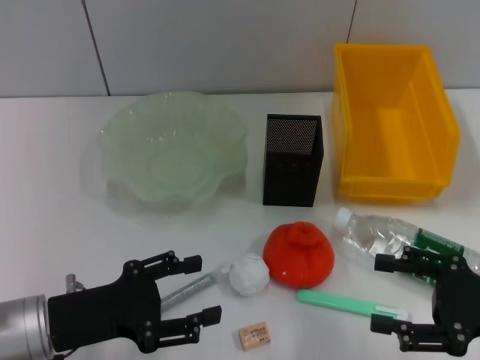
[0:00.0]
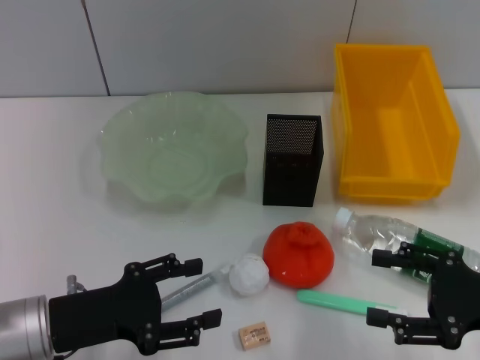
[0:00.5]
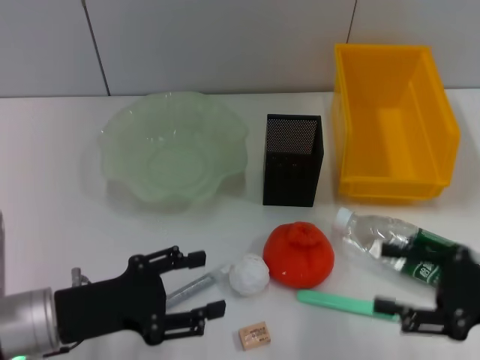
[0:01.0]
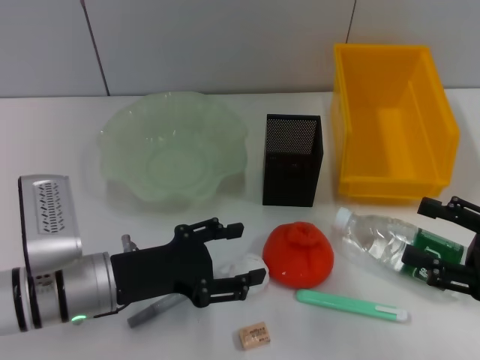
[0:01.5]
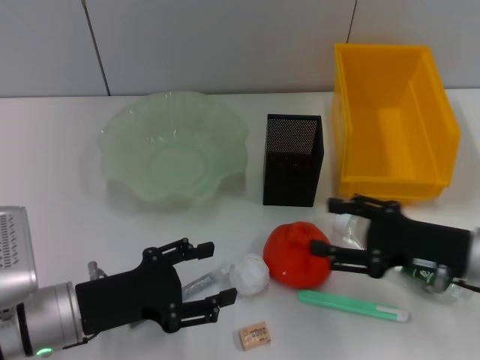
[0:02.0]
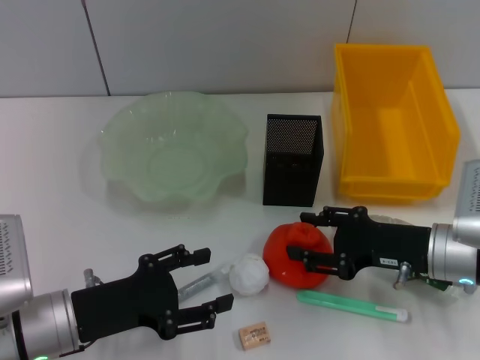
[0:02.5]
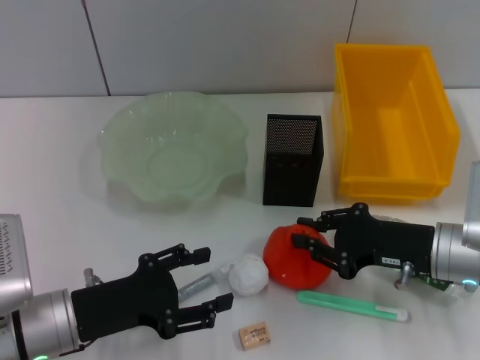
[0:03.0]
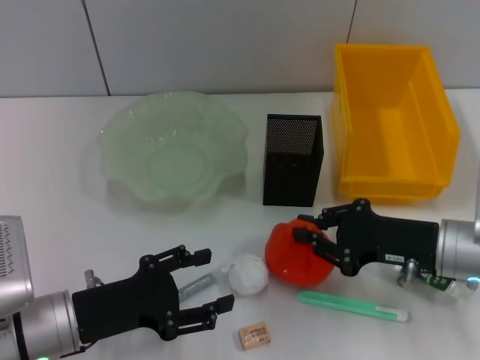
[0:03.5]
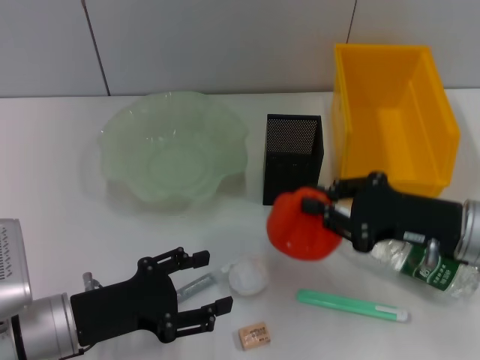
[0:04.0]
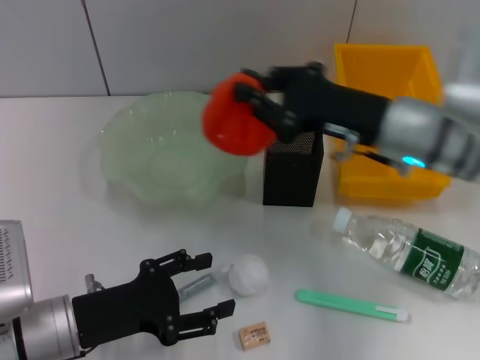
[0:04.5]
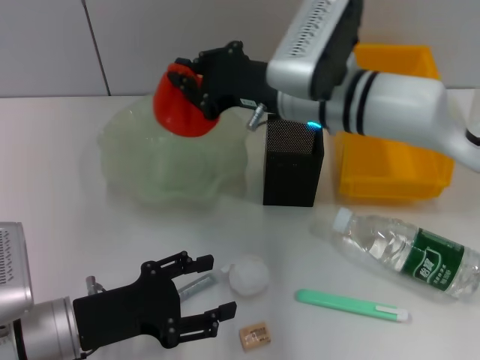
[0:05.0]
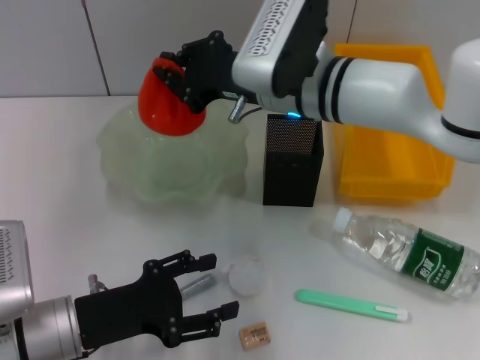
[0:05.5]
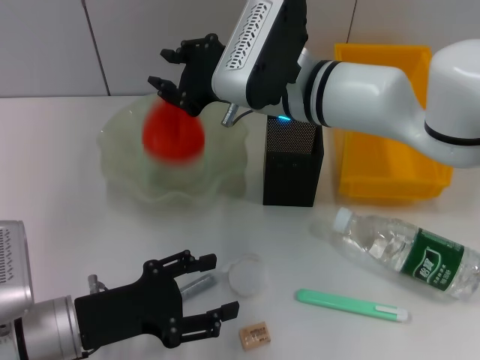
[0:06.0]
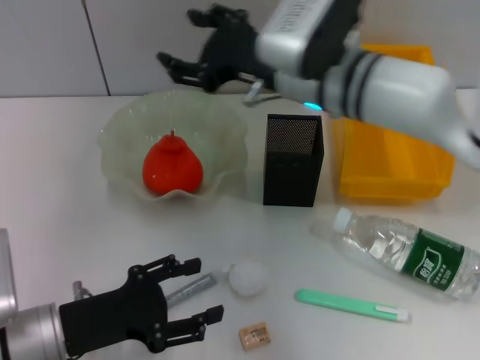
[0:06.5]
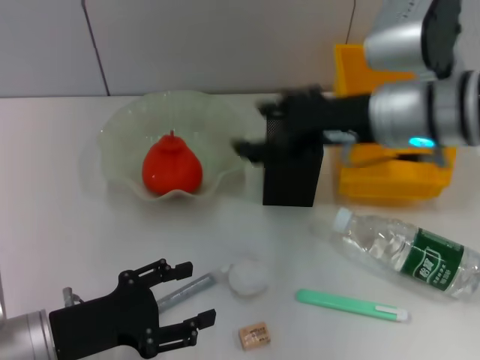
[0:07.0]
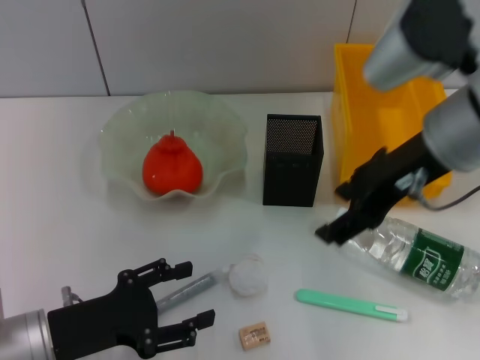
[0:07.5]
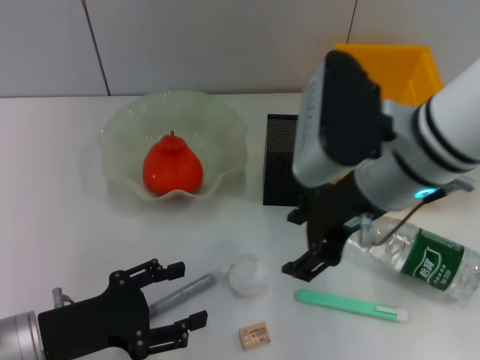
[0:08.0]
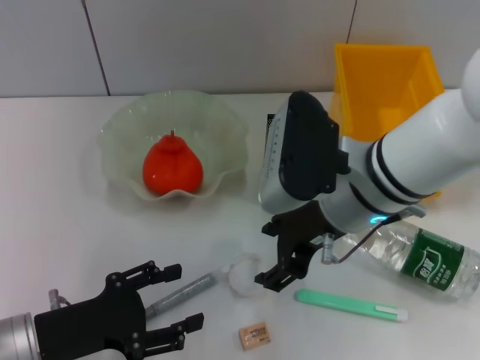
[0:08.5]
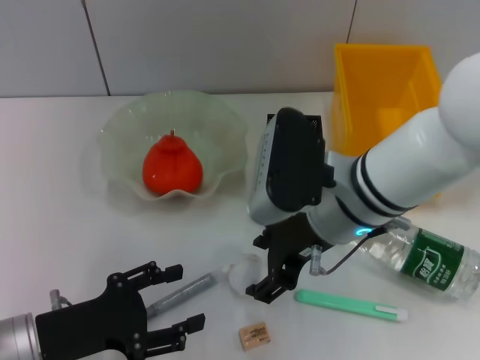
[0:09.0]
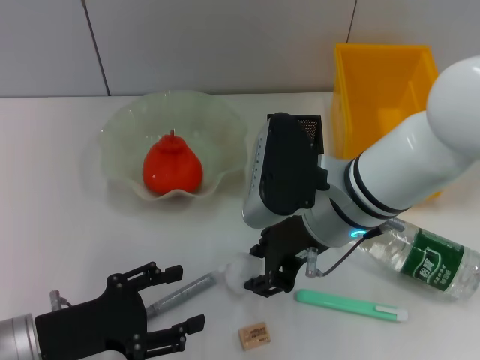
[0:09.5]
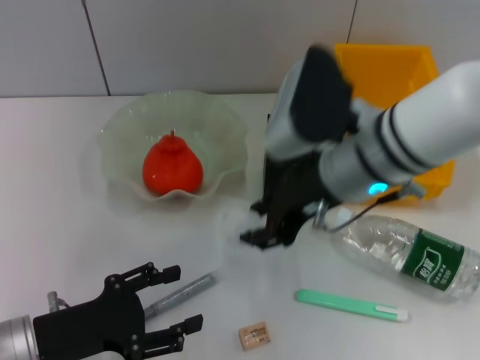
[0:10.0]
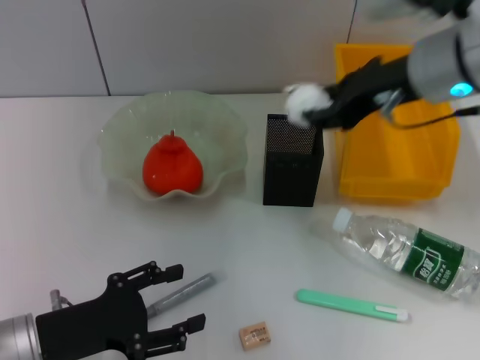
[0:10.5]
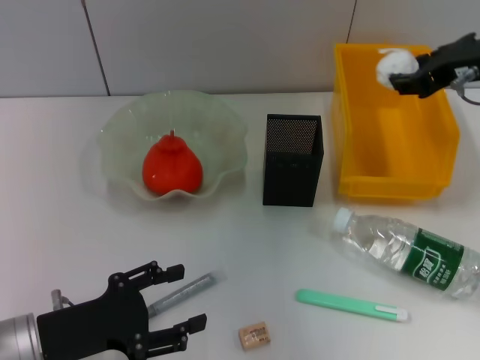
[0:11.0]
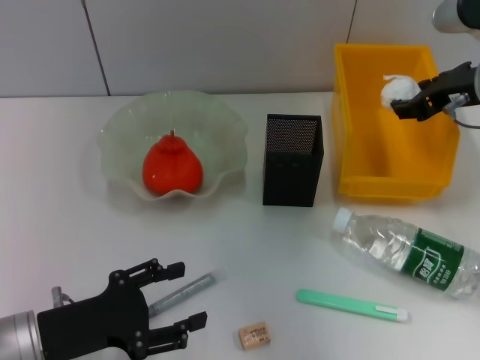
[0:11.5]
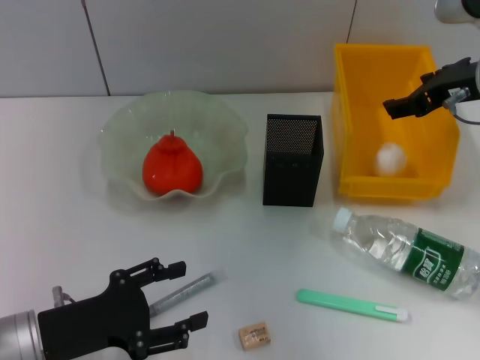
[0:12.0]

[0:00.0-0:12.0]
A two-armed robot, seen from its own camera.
Step, 0:00.0 to 0:03.0: Grab the orange with the right hand.
Step, 0:03.5 to 0:06.0: Place the orange into the fruit bowl with the right hand.
Step, 0:06.5 to 0:09.0: Grab the paper ball with the right hand.
Step, 0:09.5 to 0:12.0: Place the paper ball into the trash can with the right hand.
0:00.0 to 0:02.0: The right gripper goes some 5 cm forward.
0:02.0 to 0:04.0: The right gripper closes.
0:04.0 to 0:06.0: The right gripper shifts some 25 cm to the left, forward and upward.
0:06.0 to 0:08.0: The right gripper goes about 10 cm backward and to the right, and opens.
0:08.0 to 0:10.0: The right gripper closes.
0:10.0 to 0:12.0: The right gripper heads to the right and forward, covering roughly 15 cm, and opens up.

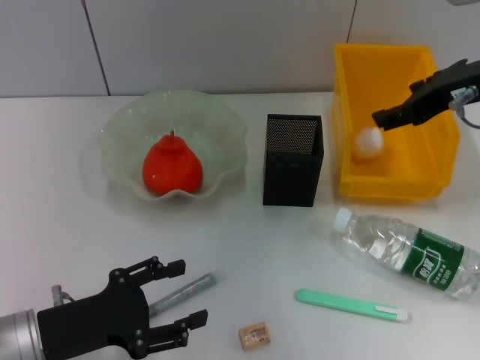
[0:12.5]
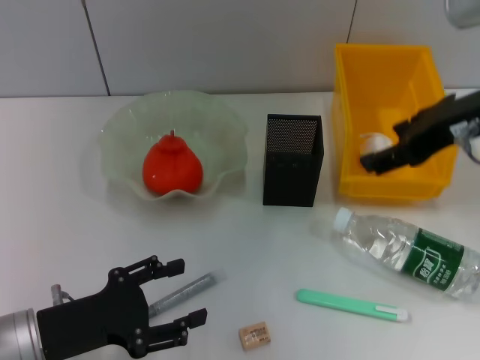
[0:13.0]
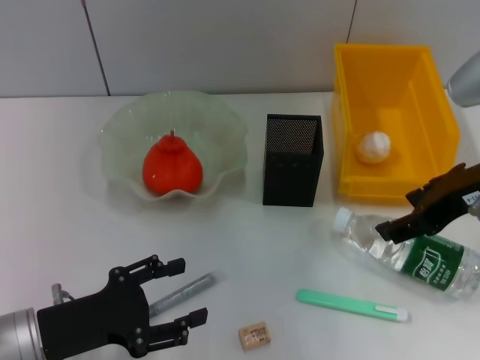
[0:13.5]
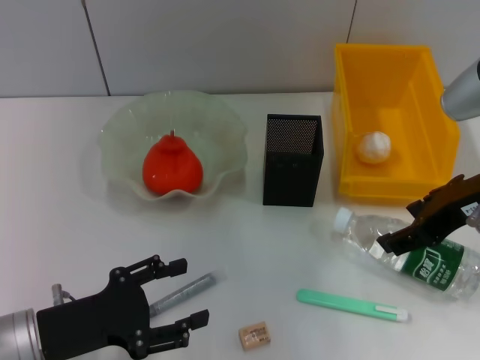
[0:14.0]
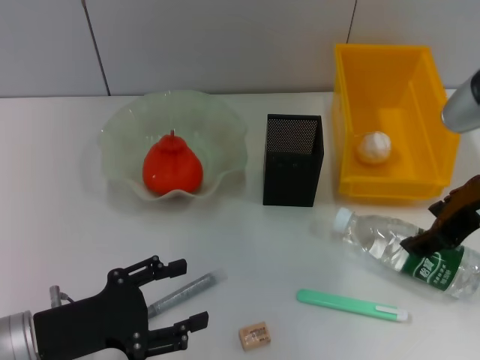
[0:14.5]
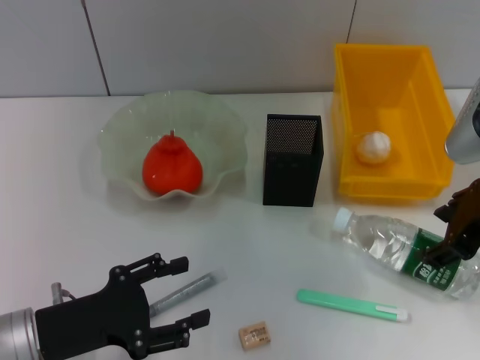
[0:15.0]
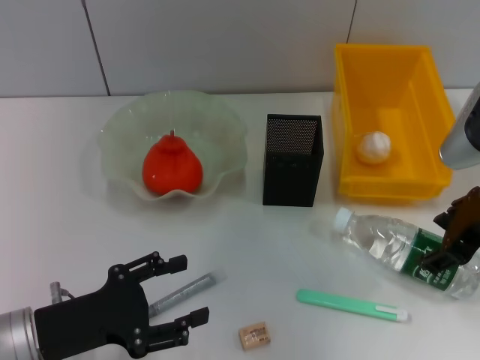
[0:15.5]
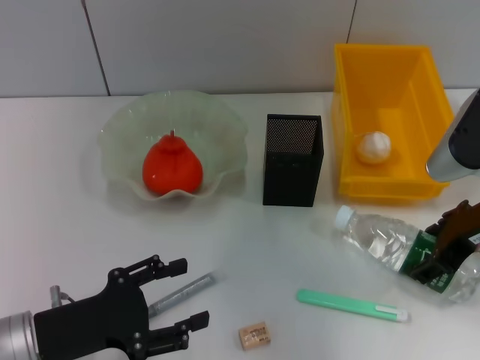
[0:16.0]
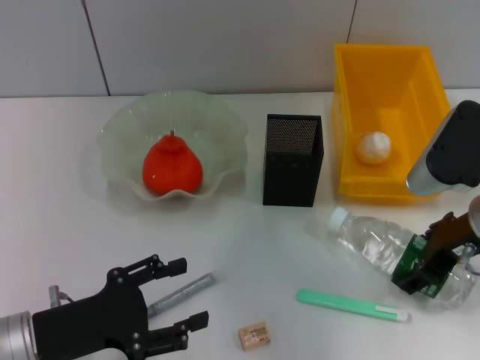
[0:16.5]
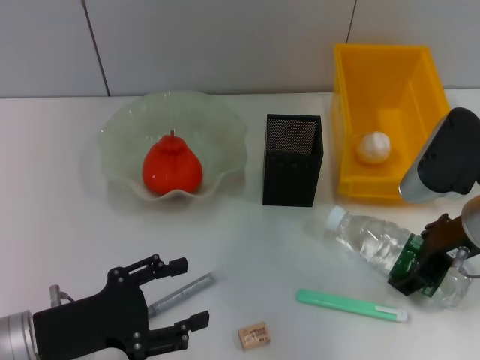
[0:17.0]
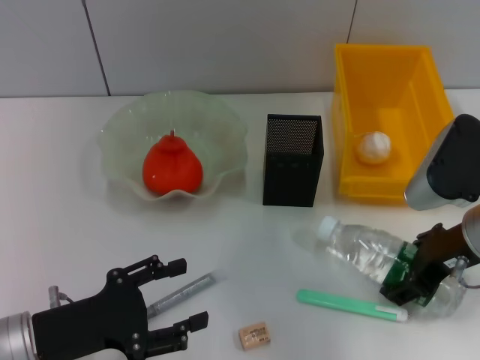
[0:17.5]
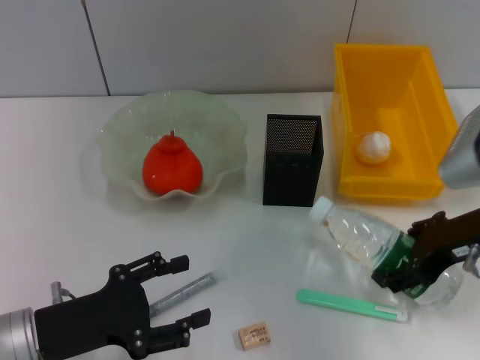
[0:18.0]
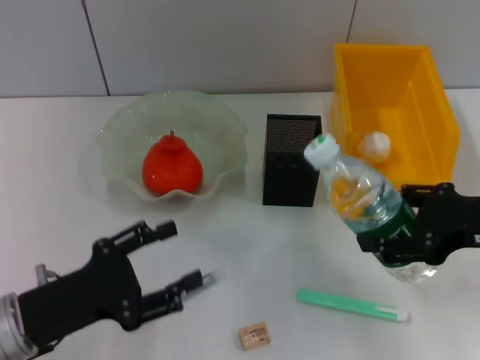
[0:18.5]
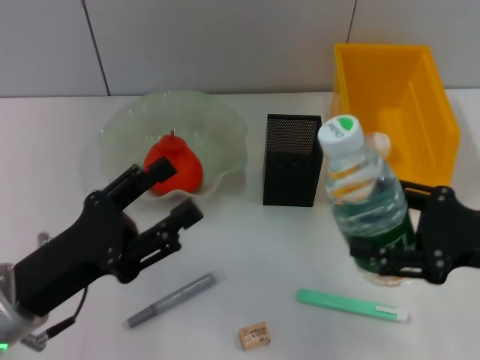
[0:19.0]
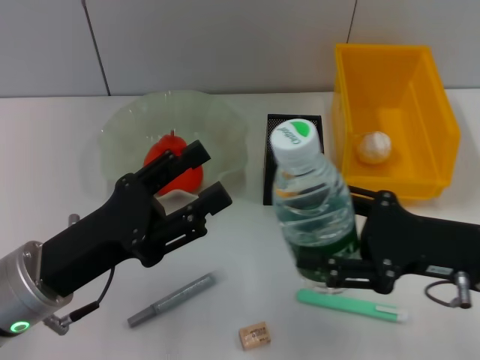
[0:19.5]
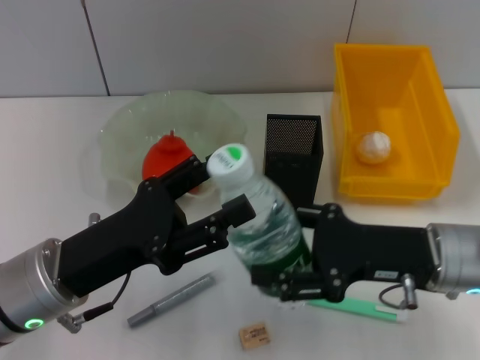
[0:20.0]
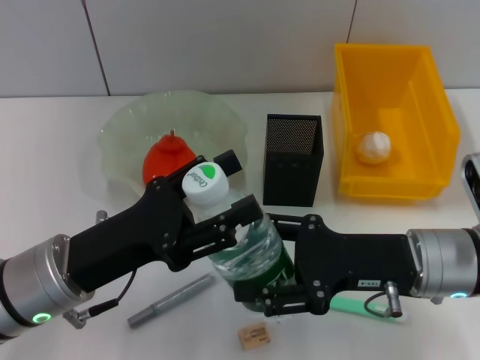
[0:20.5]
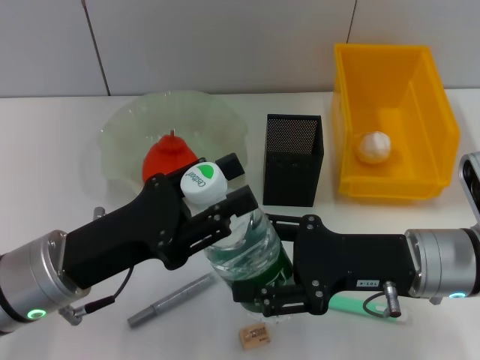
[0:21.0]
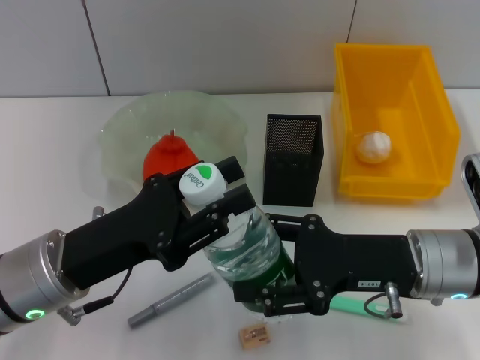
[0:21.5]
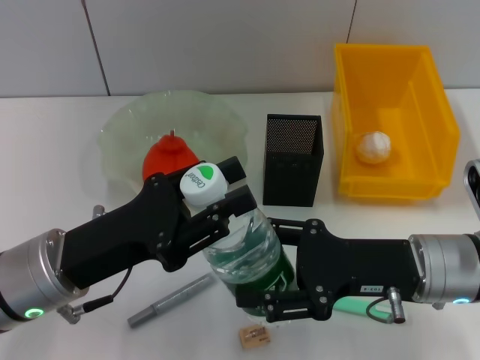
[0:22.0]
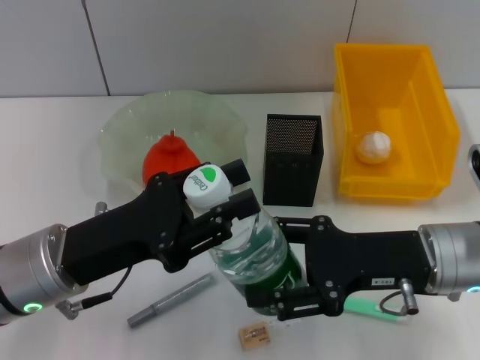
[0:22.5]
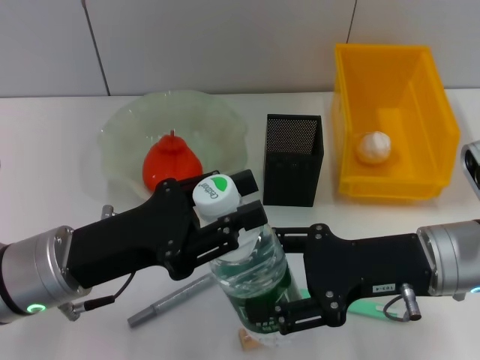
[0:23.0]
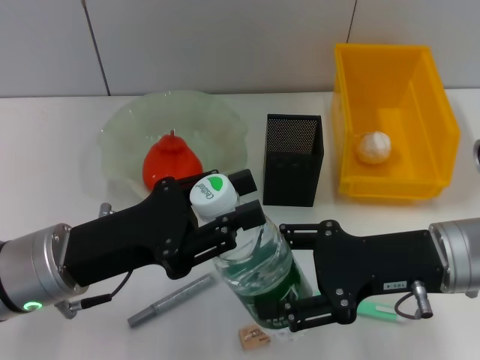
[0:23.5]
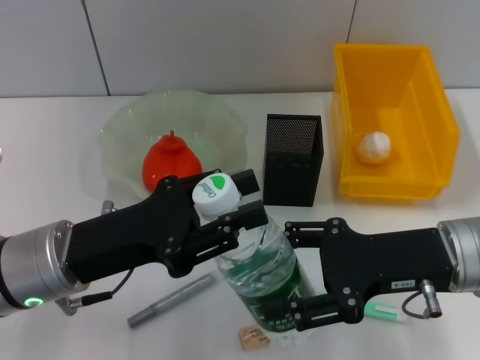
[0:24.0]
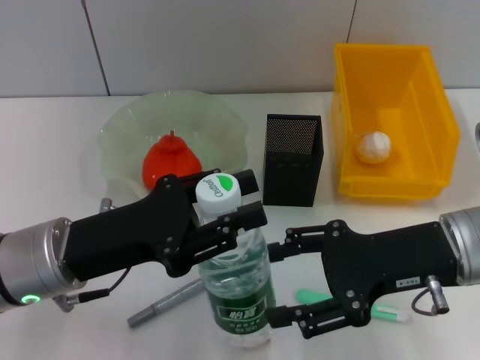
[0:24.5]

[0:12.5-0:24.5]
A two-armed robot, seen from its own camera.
Step, 0:12.5 to 0:17.0: Grab the water bottle with the right hand.
Step, 0:17.5 to 0:24.5: Pass the water bottle from the right hand to the left hand.
0:12.5 to 0:14.5: The right gripper is displaced backward by some 5 cm.
0:14.5 to 0:16.5: The right gripper moves downward, some 5 cm.
0:16.5 to 0:18.5: The right gripper shifts by some 5 cm.
0:18.5 to 0:20.5: The right gripper is displaced to the left and downward by some 10 cm. The left gripper is displaced to the right by about 5 cm.
0:20.5 to 0:22.5: The left gripper closes.
0:22.5 to 0:24.5: The grippers make only small movements.

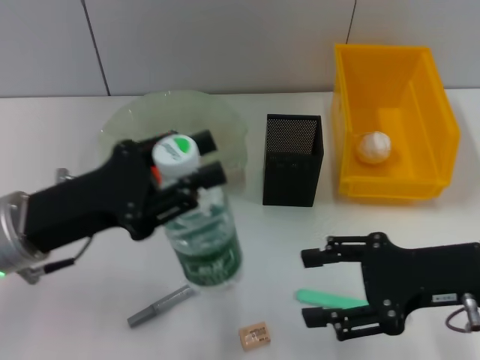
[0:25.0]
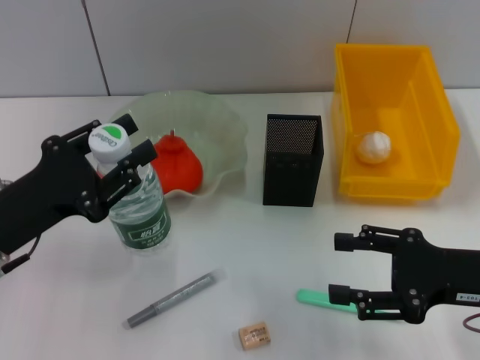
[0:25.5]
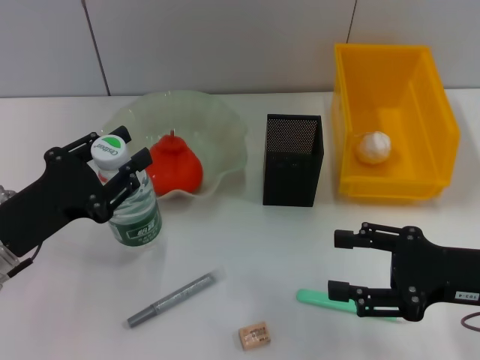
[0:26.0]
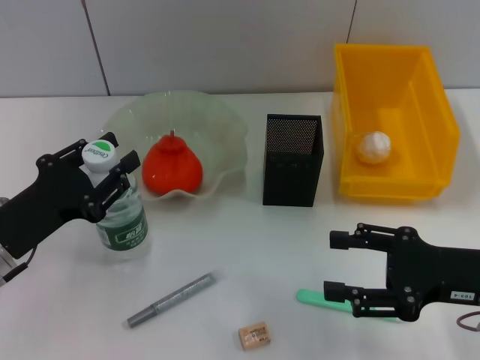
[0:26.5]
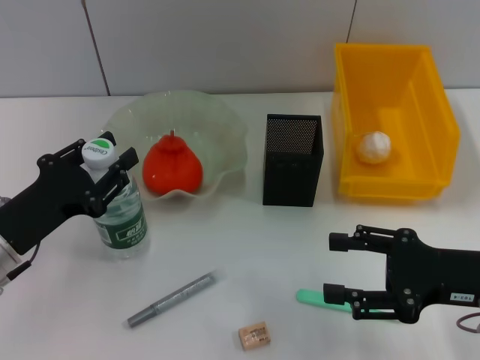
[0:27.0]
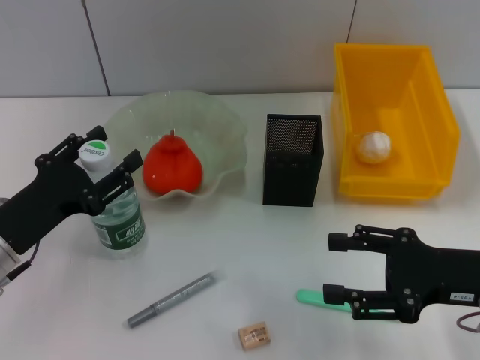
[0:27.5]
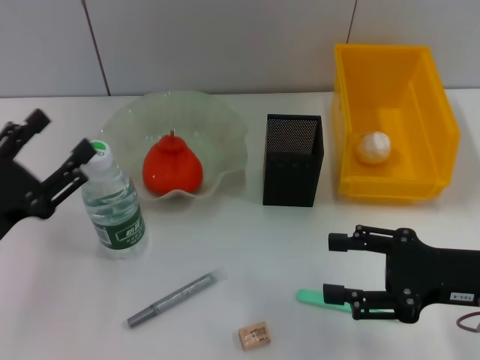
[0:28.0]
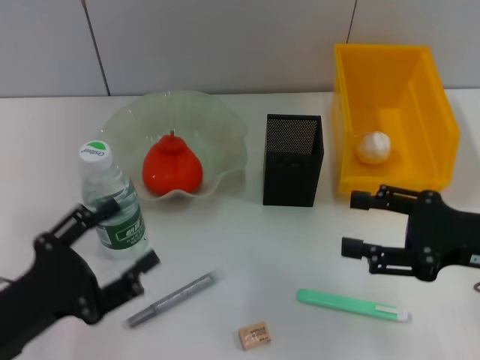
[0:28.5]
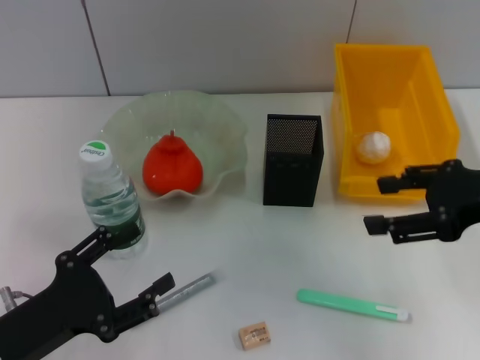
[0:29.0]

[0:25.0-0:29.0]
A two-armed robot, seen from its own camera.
Step, 0:25.0 to 0:27.5: Place the water bottle on the table with the left hand.
0:25.0 to 0:27.0: The left gripper heads downward, covering approximately 5 cm.
0:27.0 to 0:29.0: The right gripper travels upward by roughly 10 cm. Meanwhile the left gripper is displaced backward by roughly 10 cm, and opens its fingers.
